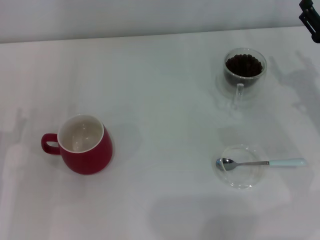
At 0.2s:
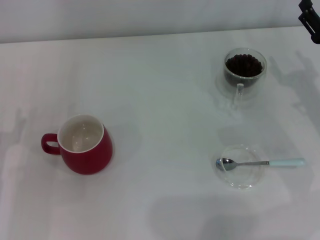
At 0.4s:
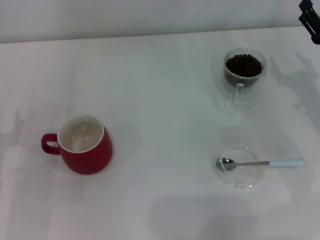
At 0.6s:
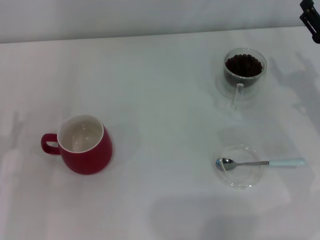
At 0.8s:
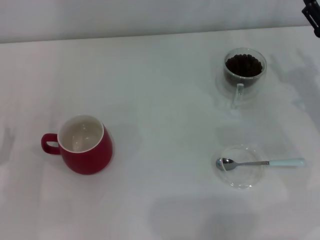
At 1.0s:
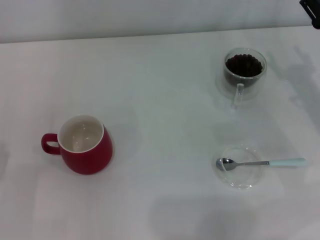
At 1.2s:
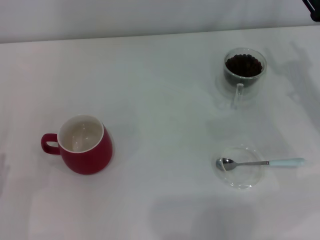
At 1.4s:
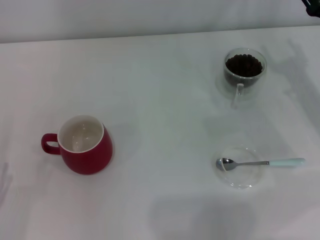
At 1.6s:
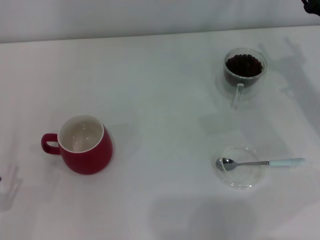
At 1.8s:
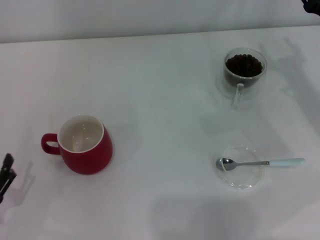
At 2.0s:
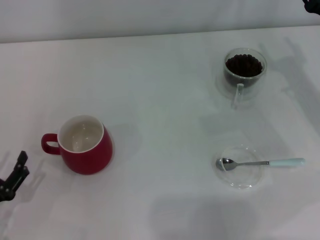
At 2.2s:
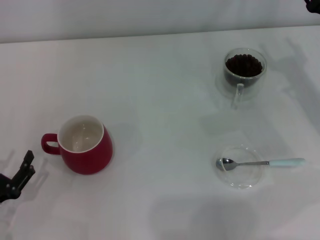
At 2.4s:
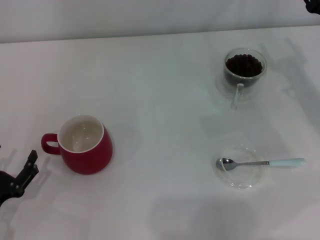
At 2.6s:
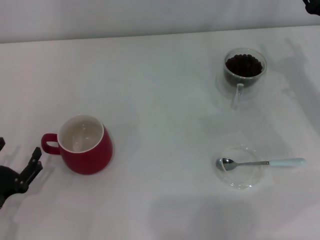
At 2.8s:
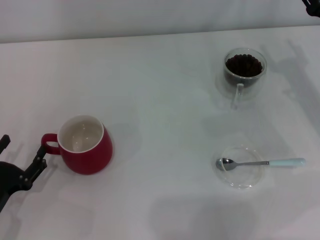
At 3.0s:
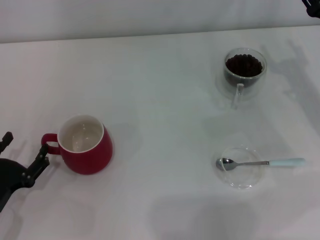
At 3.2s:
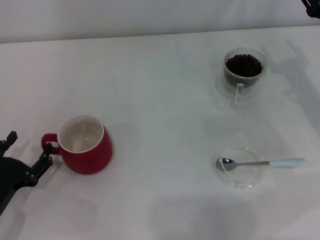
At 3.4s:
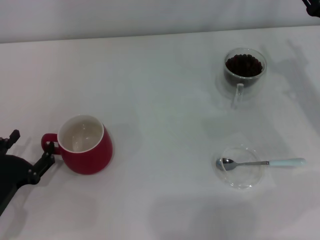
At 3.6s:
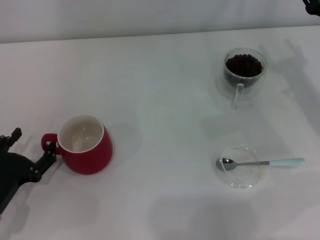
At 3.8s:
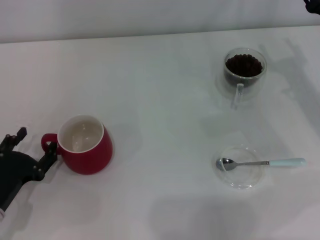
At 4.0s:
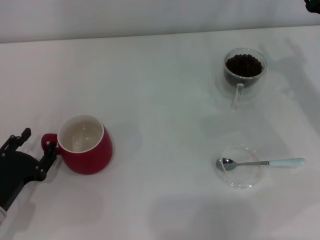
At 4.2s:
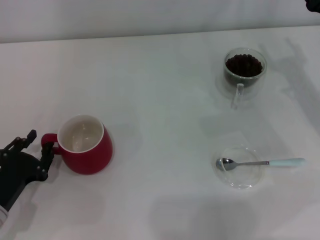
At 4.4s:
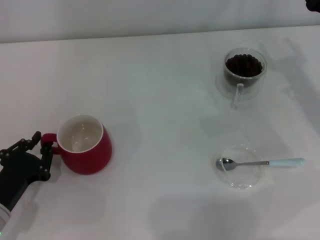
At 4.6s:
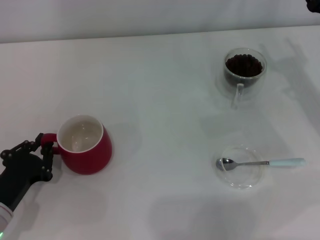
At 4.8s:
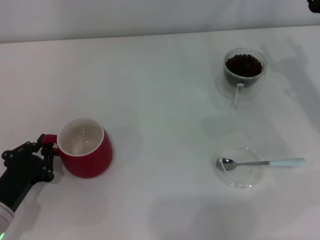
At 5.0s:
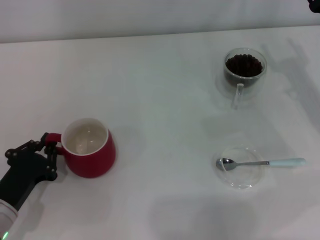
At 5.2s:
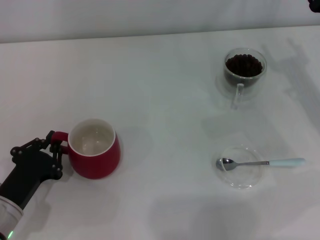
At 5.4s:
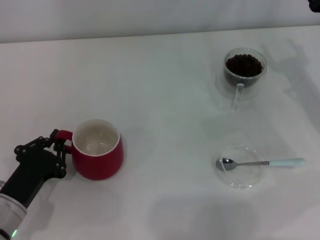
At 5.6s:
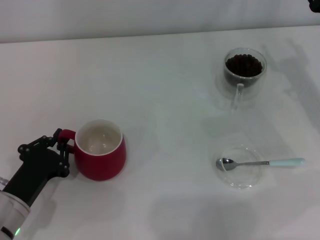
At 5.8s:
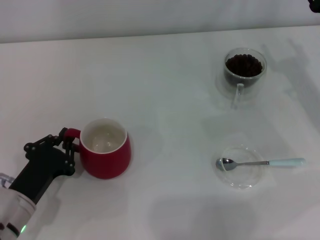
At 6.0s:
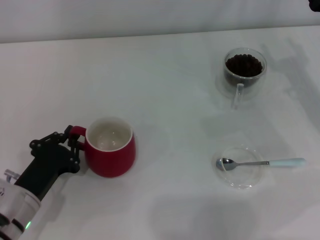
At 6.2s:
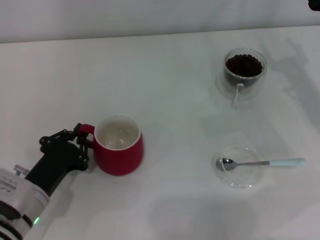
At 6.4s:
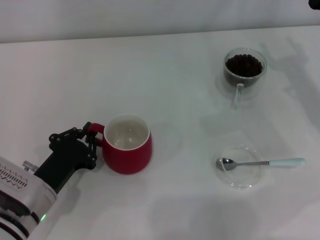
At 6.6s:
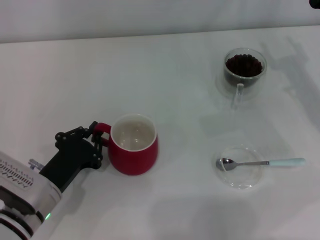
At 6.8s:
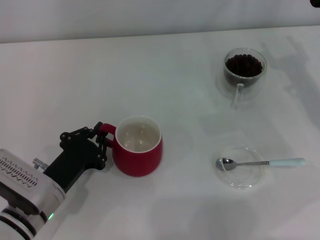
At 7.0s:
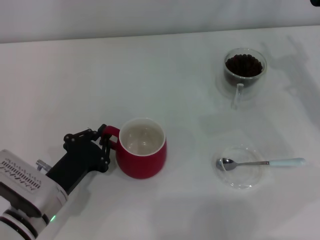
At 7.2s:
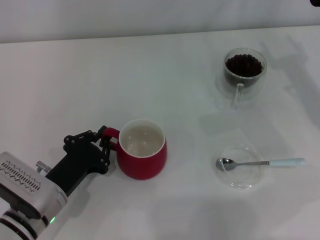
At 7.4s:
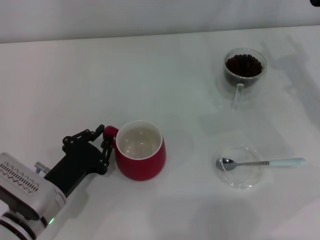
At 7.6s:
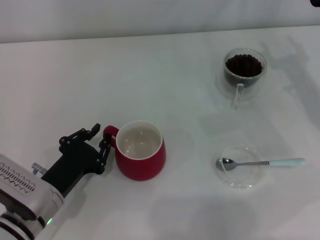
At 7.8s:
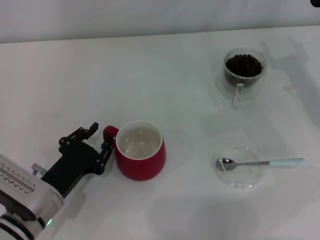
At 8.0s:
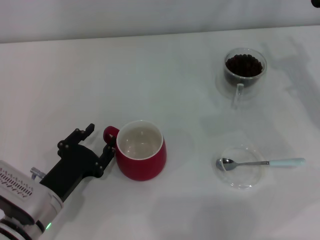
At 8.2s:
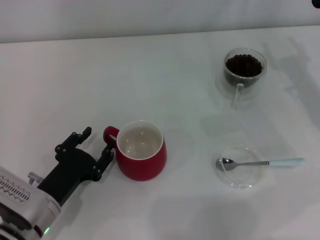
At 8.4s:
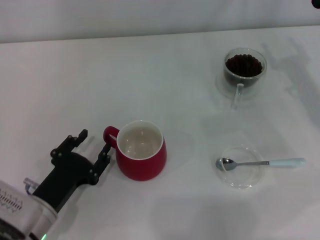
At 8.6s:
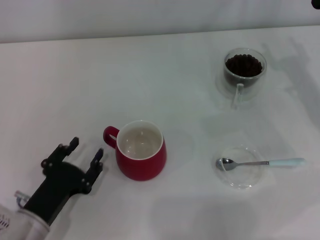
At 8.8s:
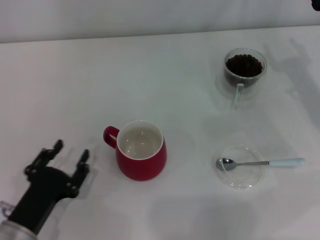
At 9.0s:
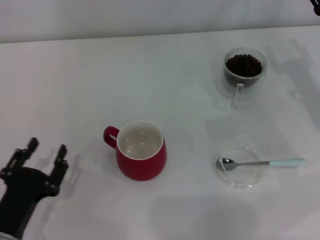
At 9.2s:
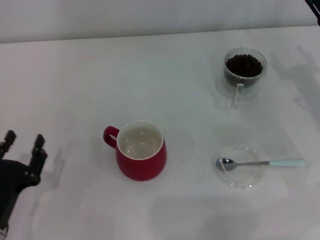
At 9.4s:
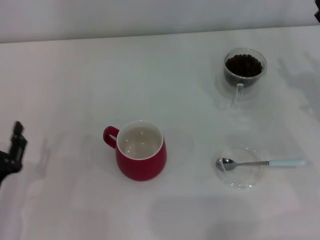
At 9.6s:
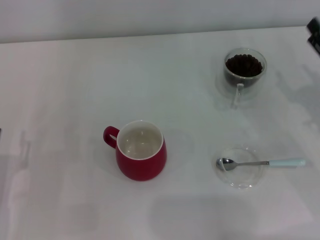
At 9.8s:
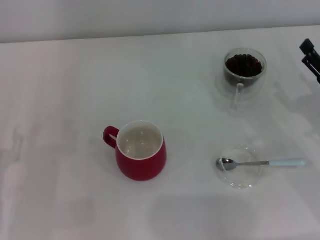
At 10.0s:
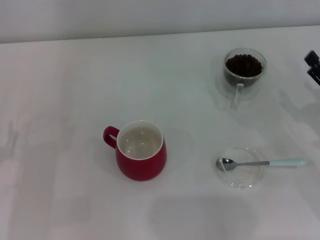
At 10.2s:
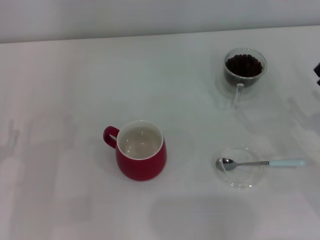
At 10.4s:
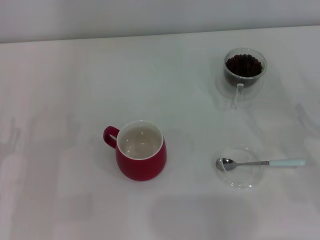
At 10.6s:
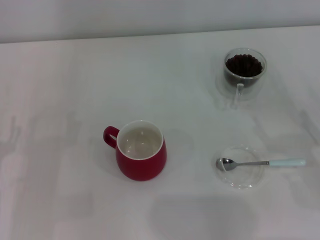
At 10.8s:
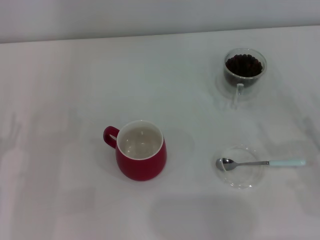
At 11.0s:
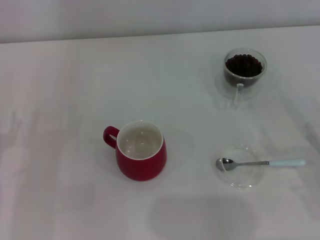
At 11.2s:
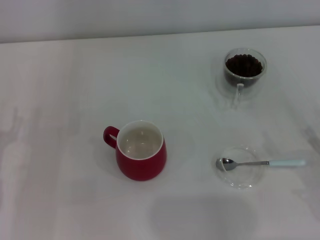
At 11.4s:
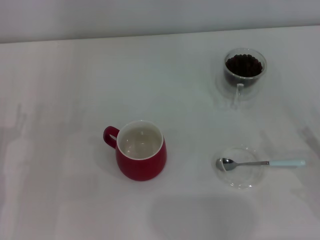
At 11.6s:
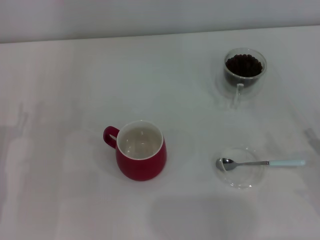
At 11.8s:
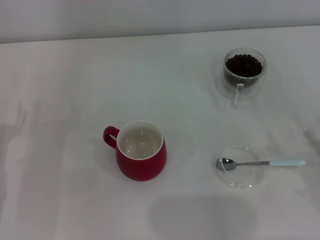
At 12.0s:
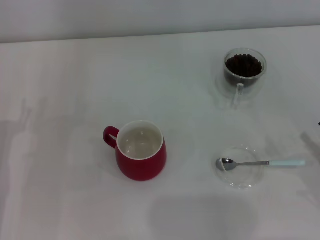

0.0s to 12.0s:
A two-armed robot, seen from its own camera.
Task of the whole recording: Use a blue spoon to take out the coffee beans from the glass and pour them into the red cup.
Step, 0.0s to 8.8s: Move the cup to the center of view with the left gripper.
1.6s to 3.0s: The left gripper heads forward, covering about 5 cm.
3.0s to 4.4s: The left gripper closes up.
4.4s to 6.0s: The left gripper closes.
6.0s to 7.6s: The grippers stay close to where they were, moving slightly.
7.6s to 9.0s: The left gripper travels backward by roughly 5 cm, and opens up.
9.0s to 10.4s: The left gripper shifts roughly 10 cm to the left and forward.
10.4s to 12.0s: The left gripper changes place by approximately 5 cm.

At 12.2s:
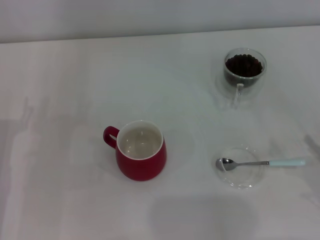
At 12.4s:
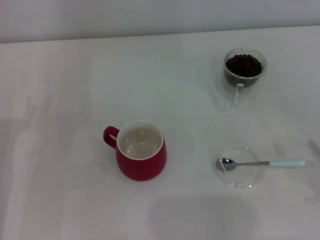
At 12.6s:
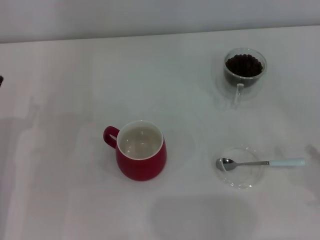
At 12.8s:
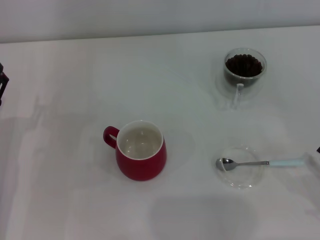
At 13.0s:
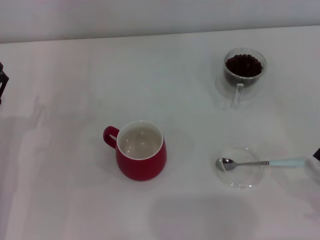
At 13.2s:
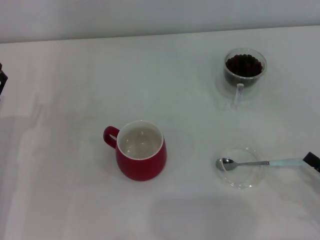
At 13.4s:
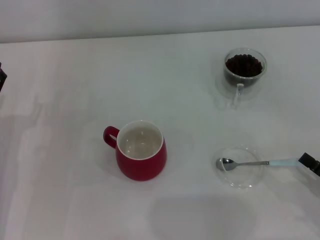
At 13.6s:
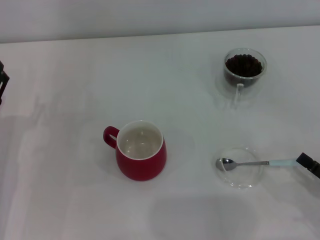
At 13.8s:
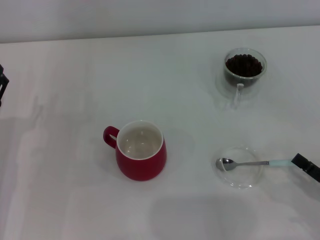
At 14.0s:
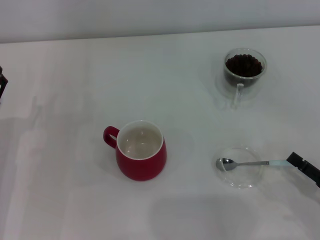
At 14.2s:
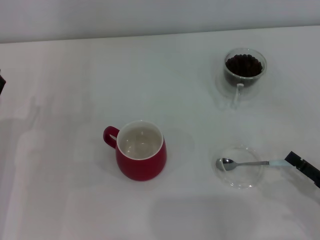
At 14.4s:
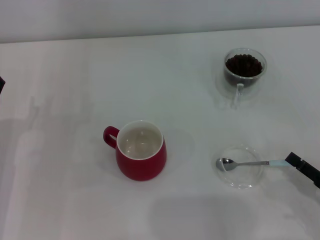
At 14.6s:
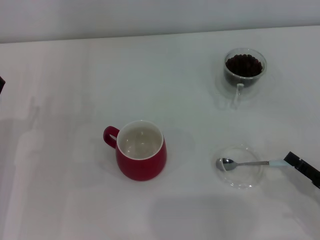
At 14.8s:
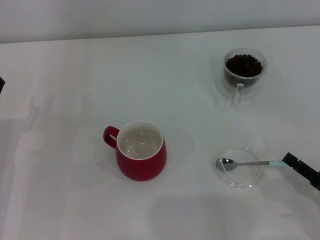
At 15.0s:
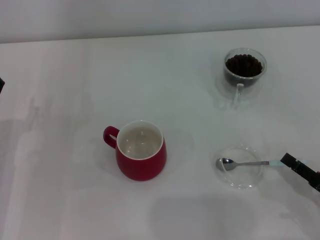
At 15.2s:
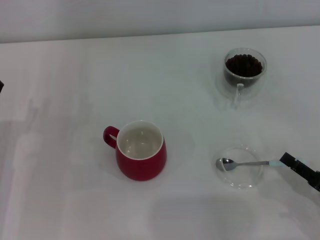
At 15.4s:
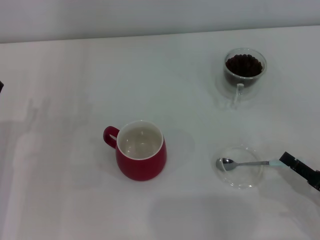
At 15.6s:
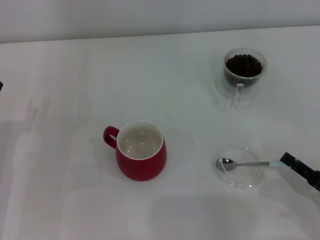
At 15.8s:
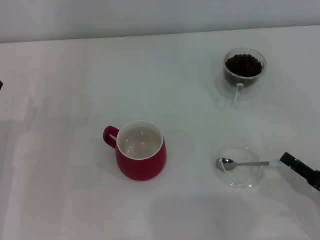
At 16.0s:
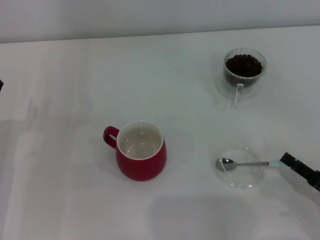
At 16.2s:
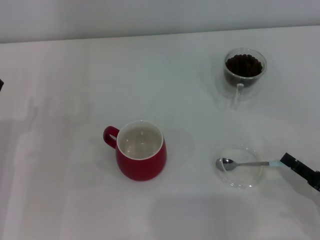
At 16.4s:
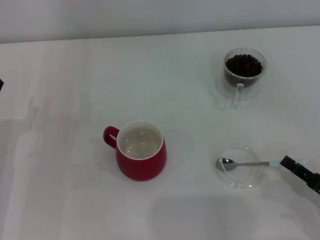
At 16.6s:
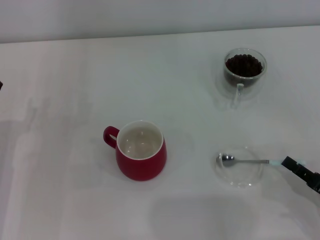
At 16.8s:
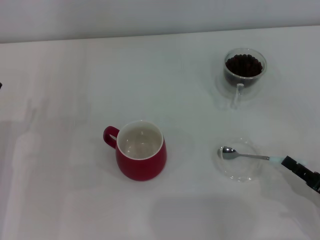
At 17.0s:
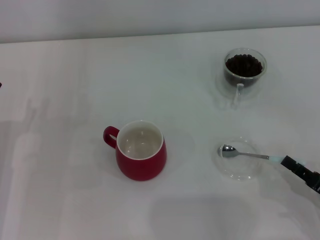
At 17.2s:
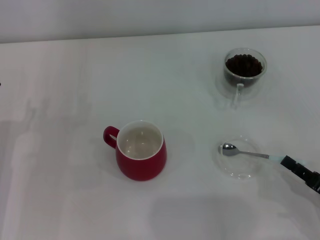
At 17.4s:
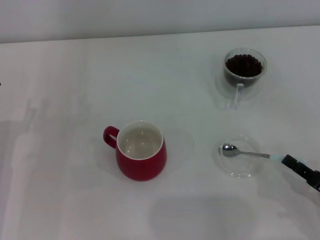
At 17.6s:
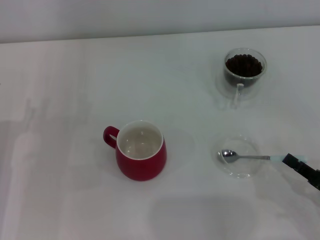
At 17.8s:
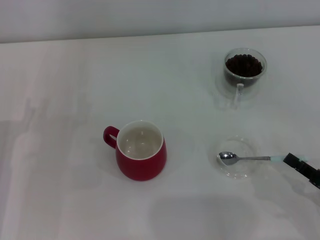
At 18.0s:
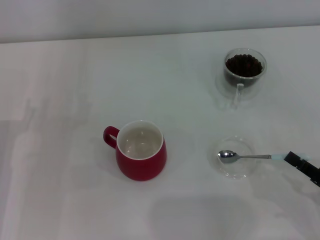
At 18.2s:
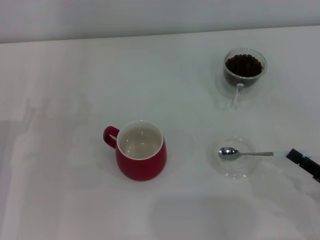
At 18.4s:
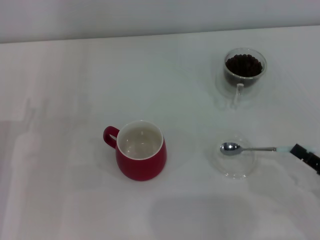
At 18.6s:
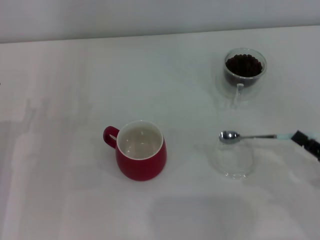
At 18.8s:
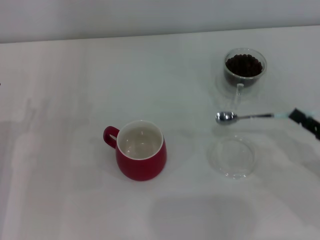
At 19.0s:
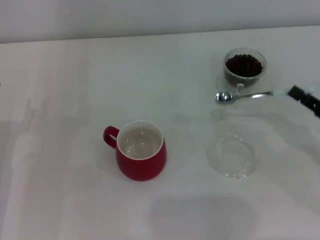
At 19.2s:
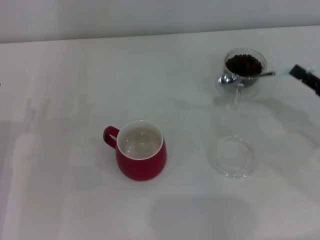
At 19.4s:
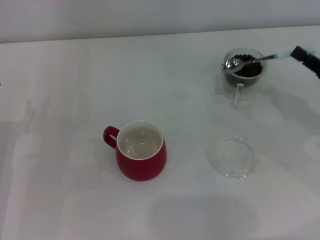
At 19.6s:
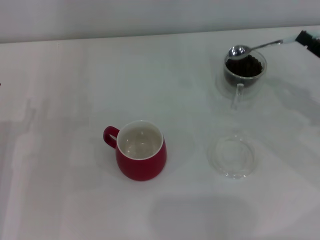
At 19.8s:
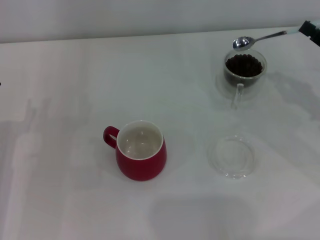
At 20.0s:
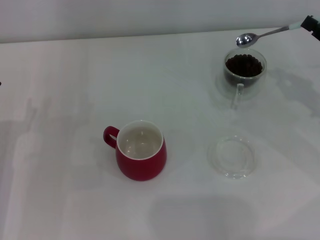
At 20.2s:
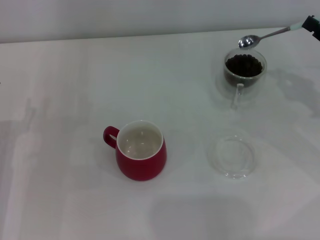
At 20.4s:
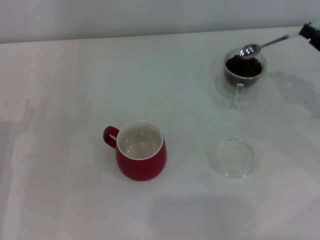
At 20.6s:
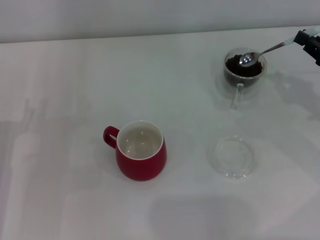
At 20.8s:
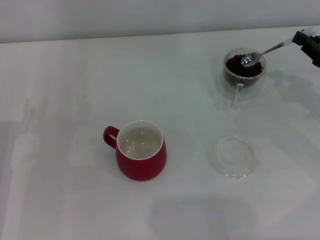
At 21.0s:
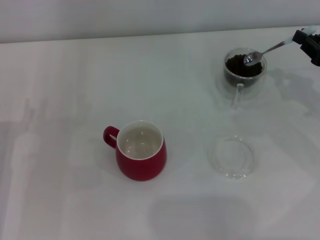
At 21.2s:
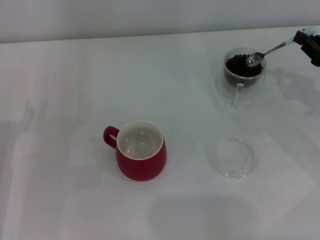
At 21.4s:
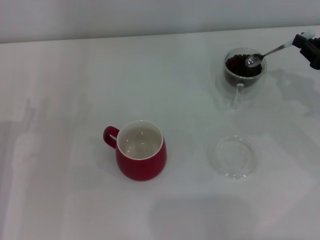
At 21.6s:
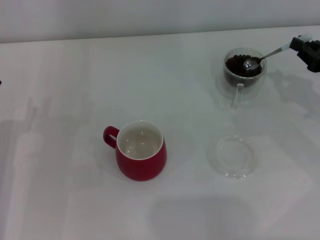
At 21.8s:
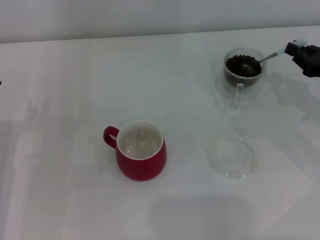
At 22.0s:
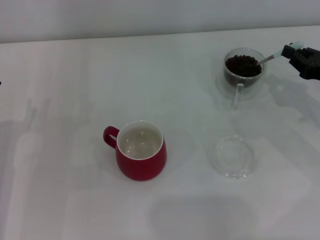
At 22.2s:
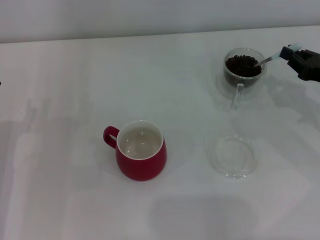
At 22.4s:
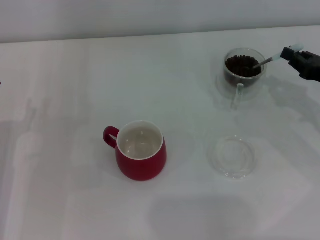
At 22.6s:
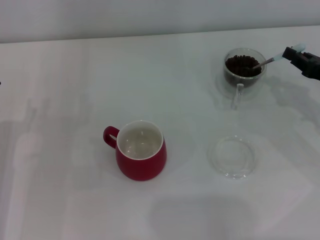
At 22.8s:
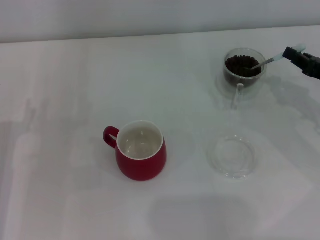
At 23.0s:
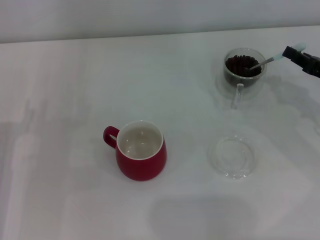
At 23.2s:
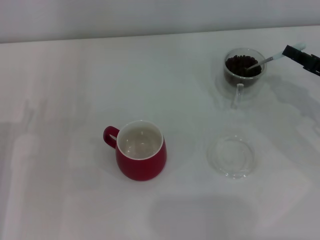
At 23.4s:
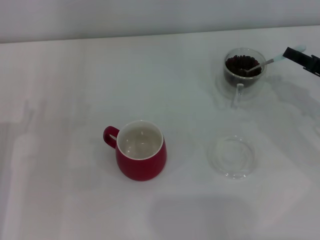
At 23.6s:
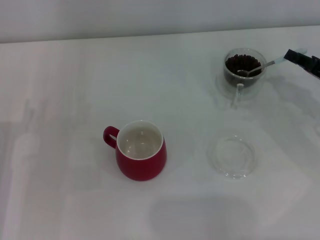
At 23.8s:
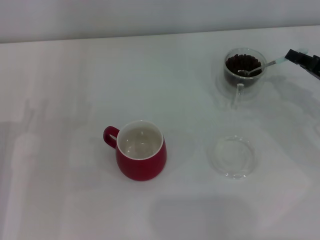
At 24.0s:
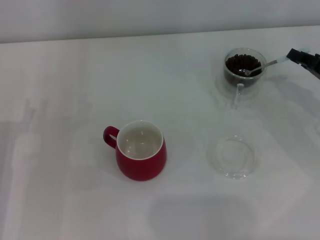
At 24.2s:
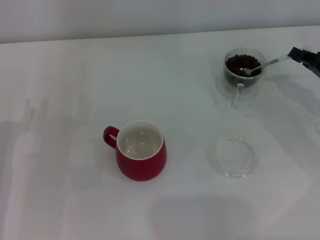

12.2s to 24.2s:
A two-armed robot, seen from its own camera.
Task of the whole recording: Use a blue spoon to take out the coffee beans from the glass and pour them into the red cup.
Step, 12.2s to 18.4s: Pick up the spoon with the right gripper.
12.2s to 13.8s: The grippers stay close to where they were, moving slightly.
13.8s to 15.2s: The right gripper closes up.
15.2s to 16.6s: The two grippers keep their place.
16.6s to 18.2s: There are only small adjustments of the grippers.
18.2s to 19.8s: The right gripper goes roughly 20 cm forward and upward.
19.8s to 21.2s: The grippers make only small movements.
21.2s to 22.6s: The grippers move only a little.
